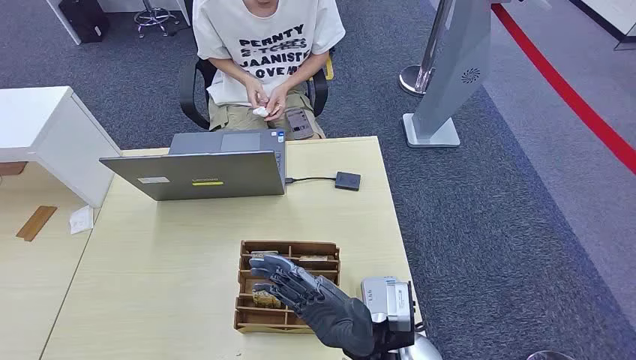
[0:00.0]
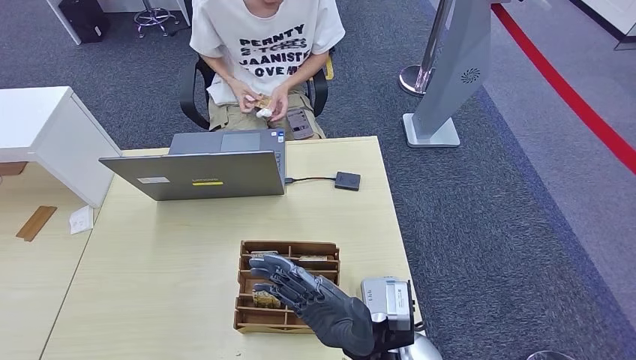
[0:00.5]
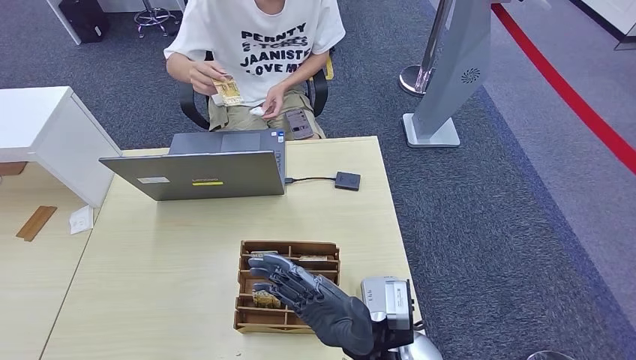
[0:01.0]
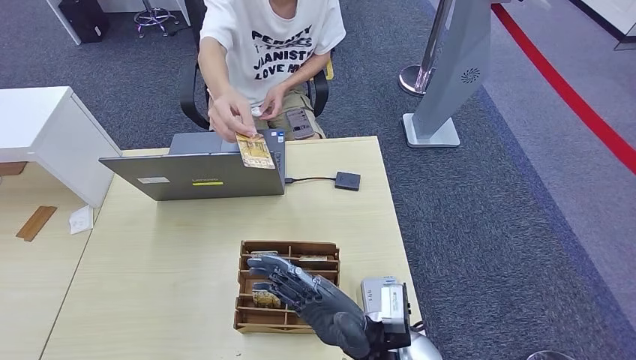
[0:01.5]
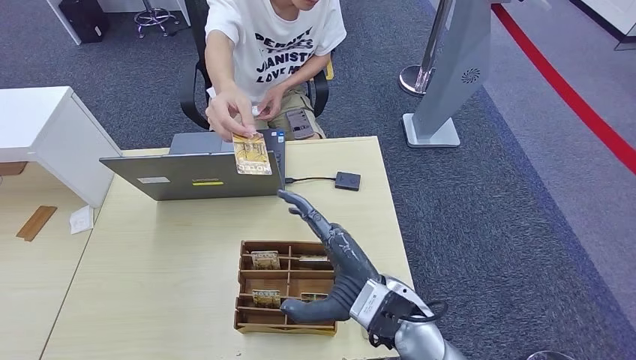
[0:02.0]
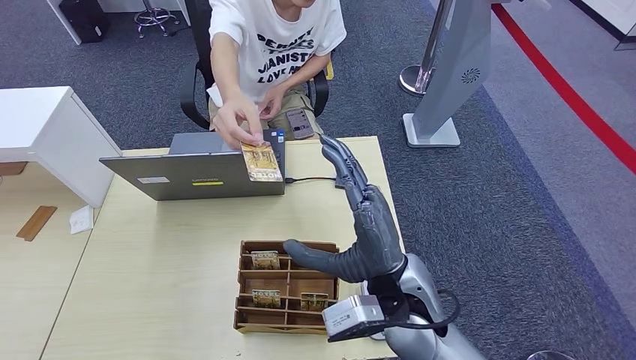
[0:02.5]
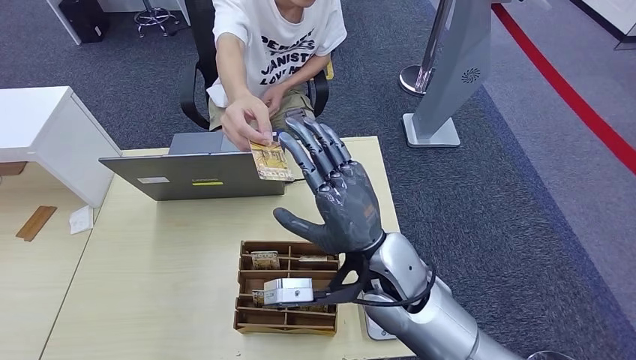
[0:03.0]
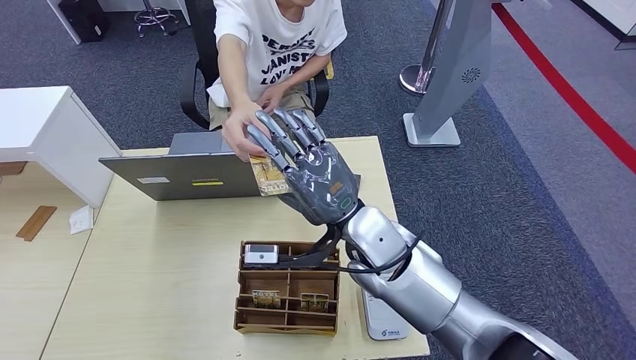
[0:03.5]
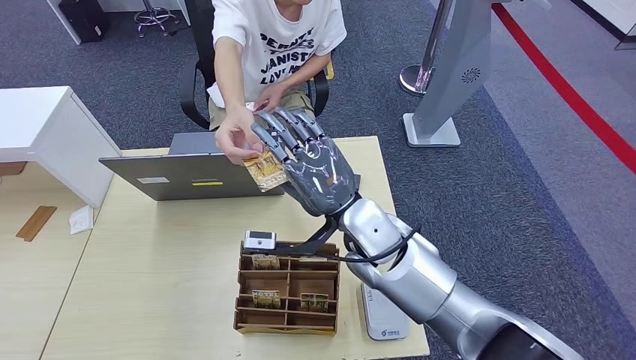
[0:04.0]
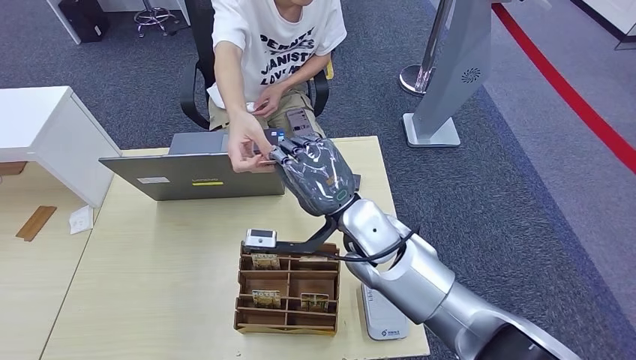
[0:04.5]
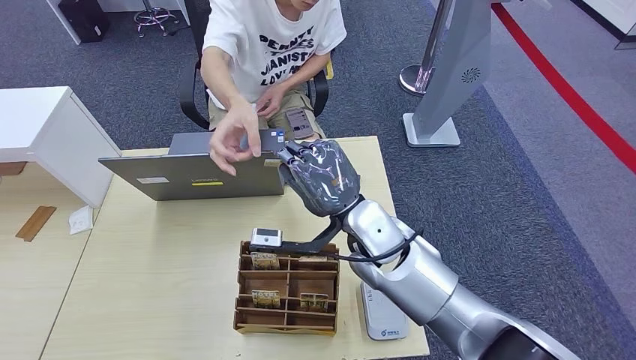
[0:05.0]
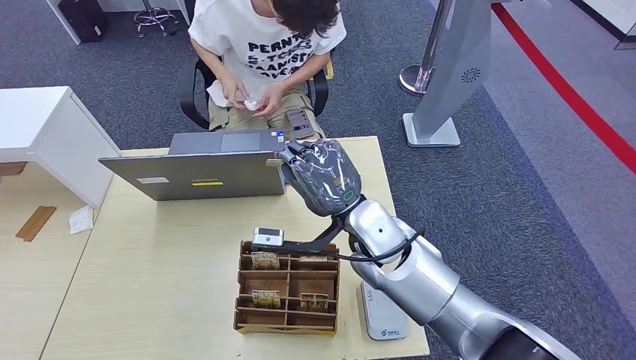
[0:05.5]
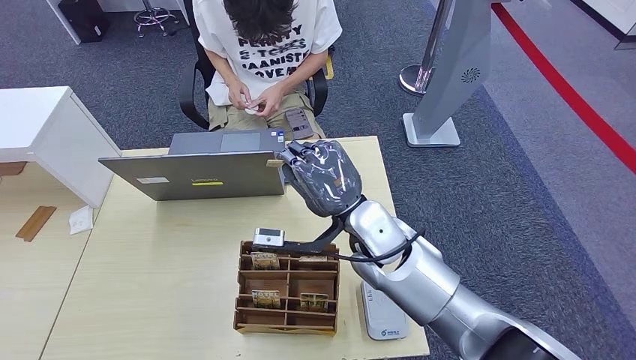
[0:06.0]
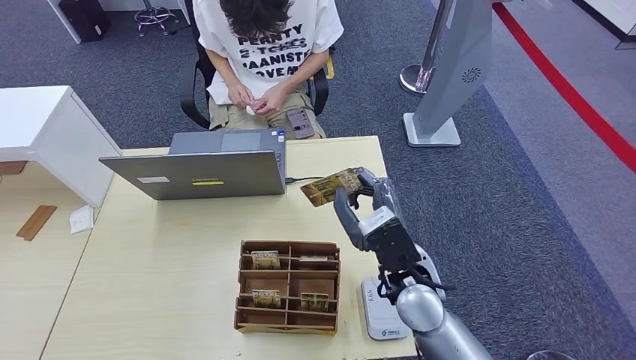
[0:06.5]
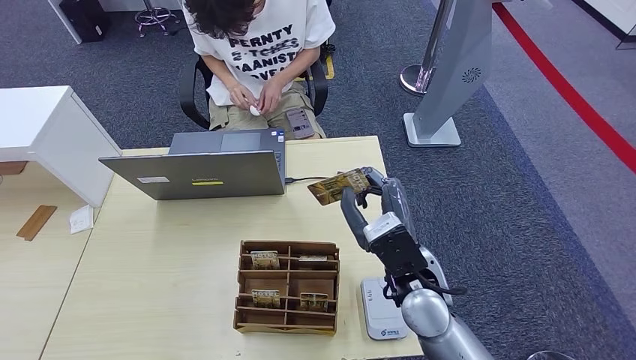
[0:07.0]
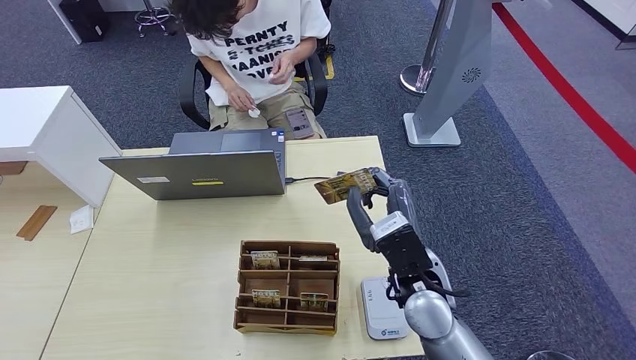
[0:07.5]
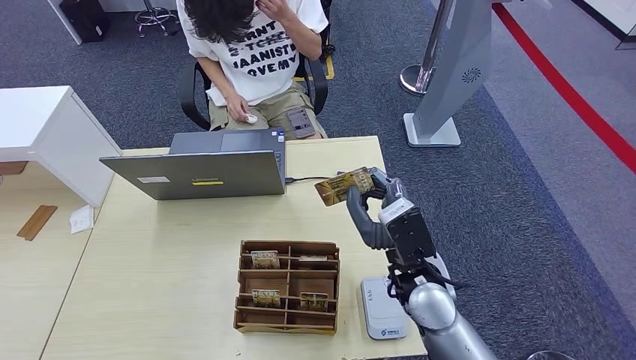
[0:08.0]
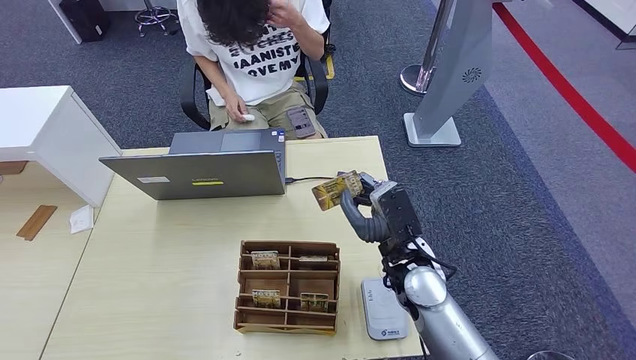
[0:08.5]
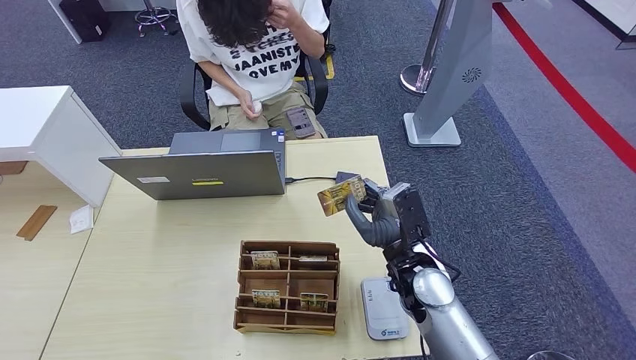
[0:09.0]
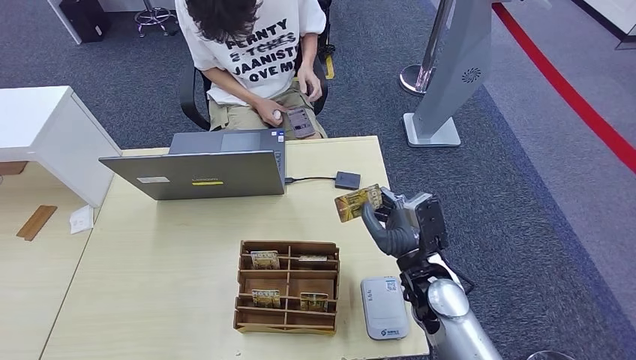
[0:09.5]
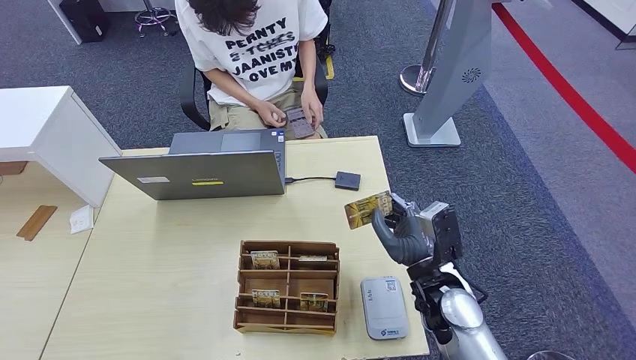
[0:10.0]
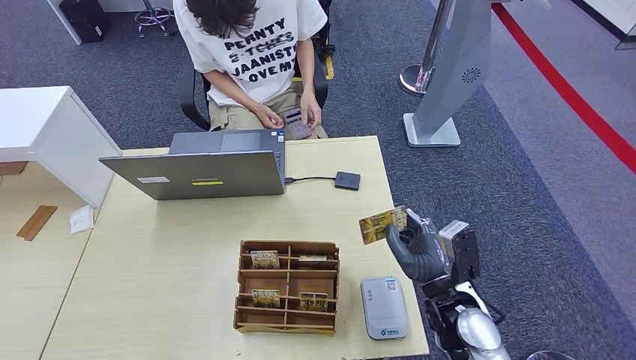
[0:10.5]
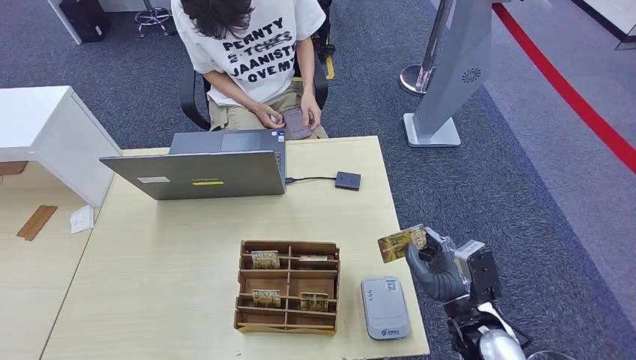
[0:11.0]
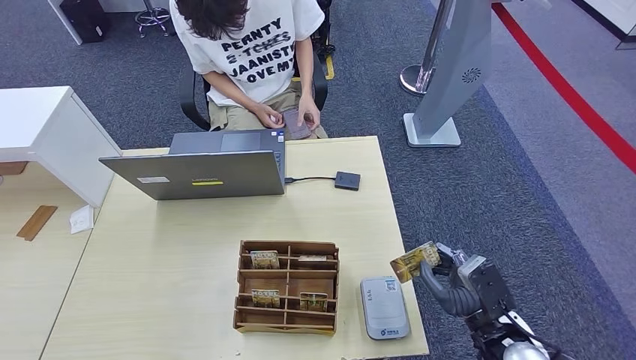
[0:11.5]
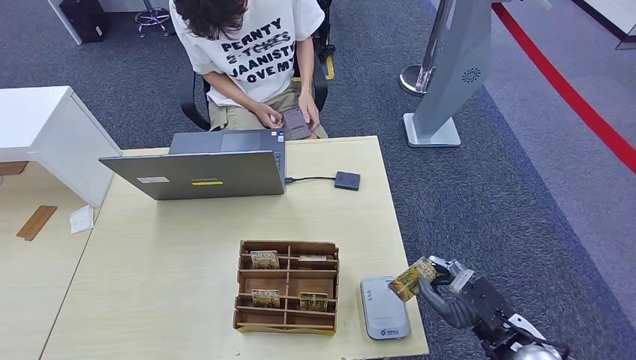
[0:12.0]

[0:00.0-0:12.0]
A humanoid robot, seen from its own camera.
Step, 0:00.0 to 0:04.5: Take the ID card from the person's hand.
0:02.0 to 0:04.0: The right hand heads forward, covering some 10 cm.
0:04.0 to 0:06.0: The hands make only small movements.
0:06.0 to 0:08.0: The right hand shifts approximately 10 cm to the right and backward.
0:08.0 to 0:10.0: The right hand goes some 5 cm downward.
0:10.0 to 0:12.0: The right hand travels to the right and backward by some 15 cm.

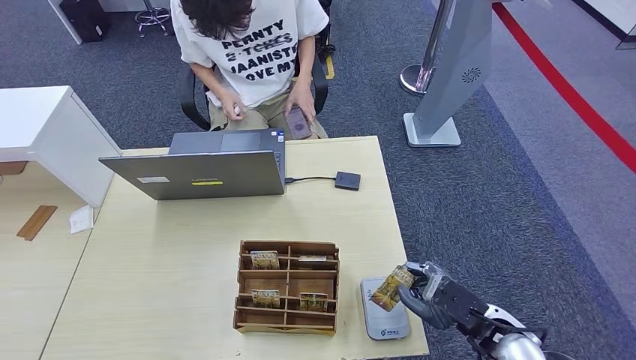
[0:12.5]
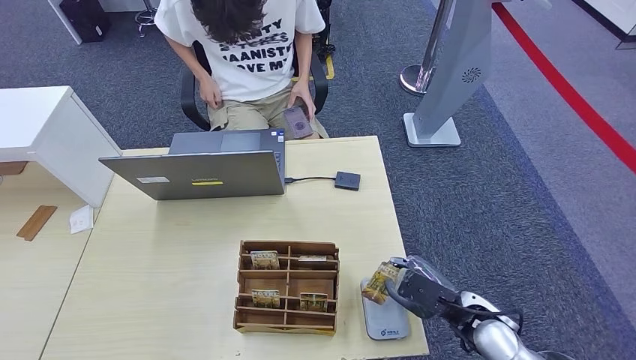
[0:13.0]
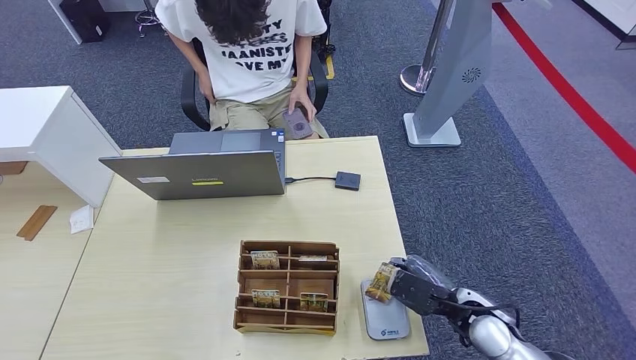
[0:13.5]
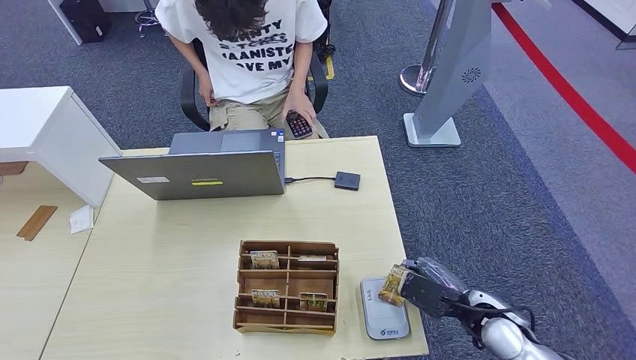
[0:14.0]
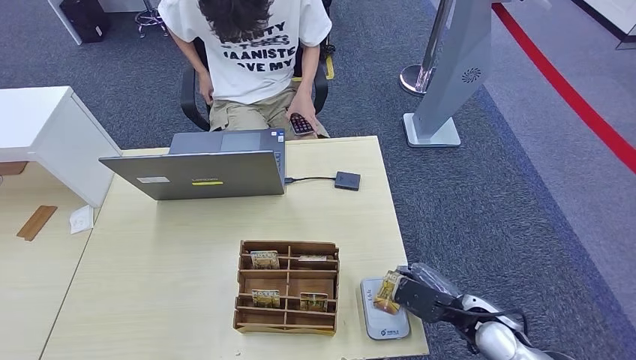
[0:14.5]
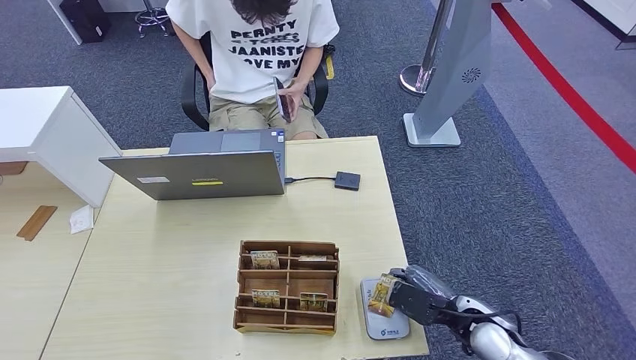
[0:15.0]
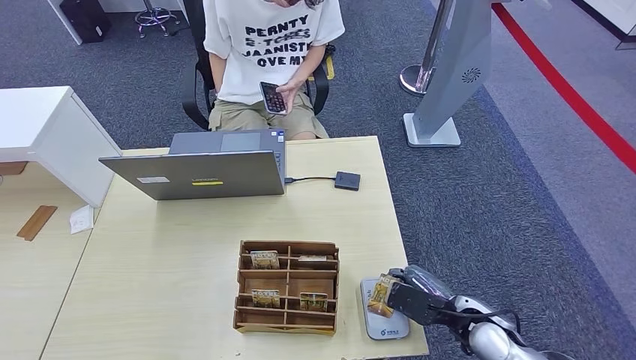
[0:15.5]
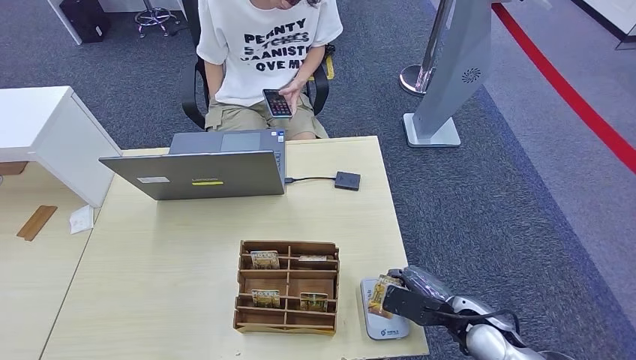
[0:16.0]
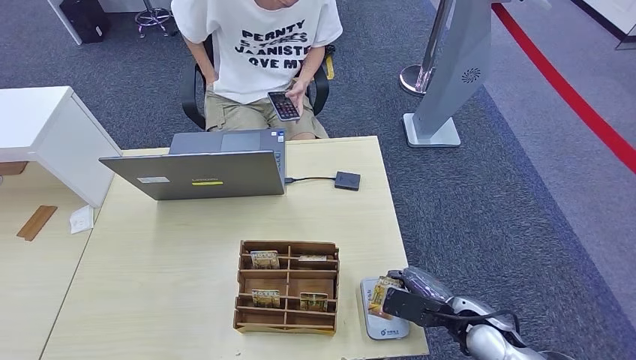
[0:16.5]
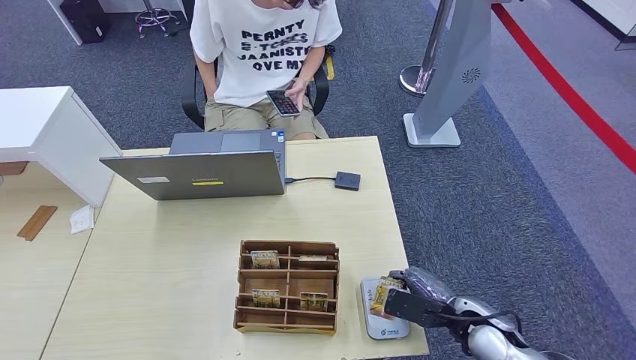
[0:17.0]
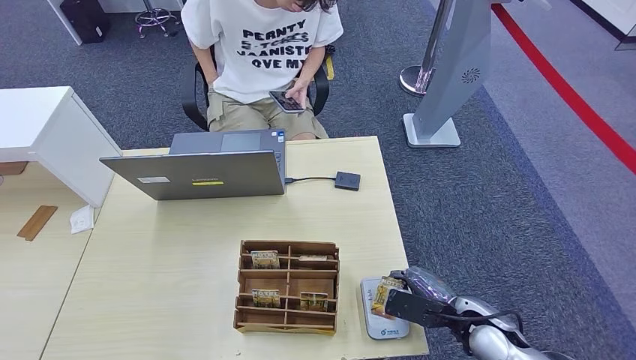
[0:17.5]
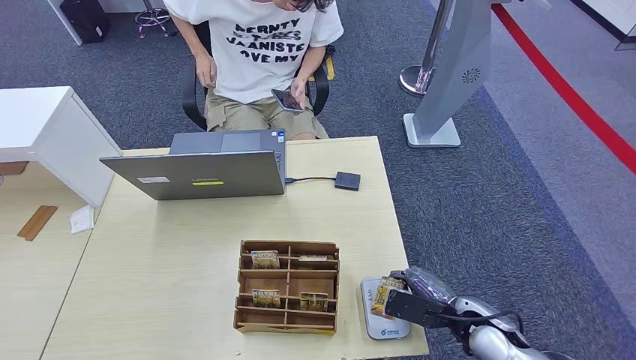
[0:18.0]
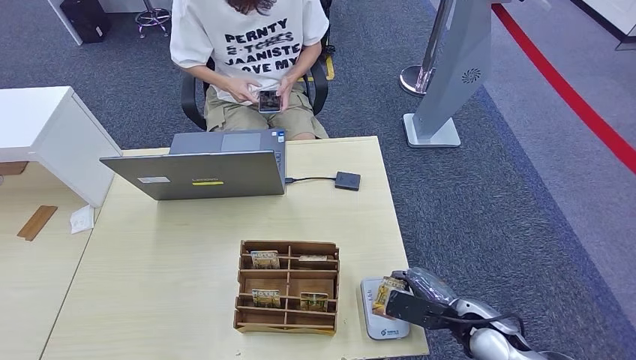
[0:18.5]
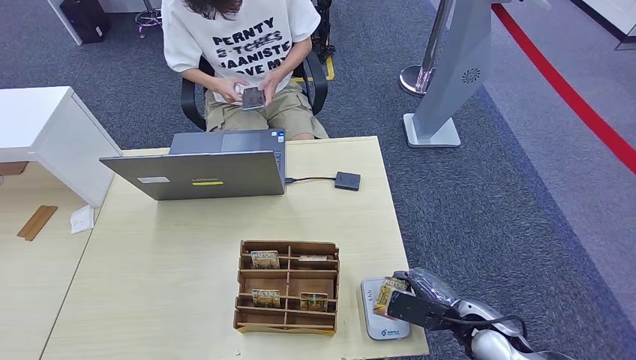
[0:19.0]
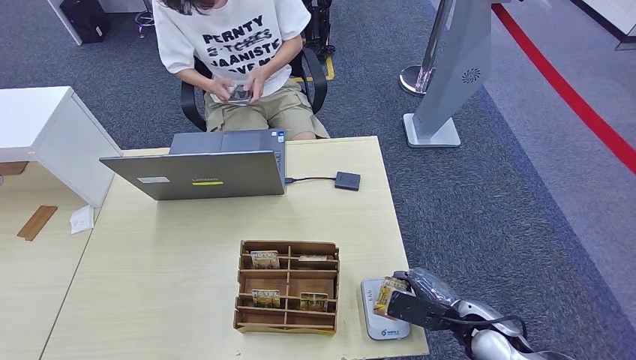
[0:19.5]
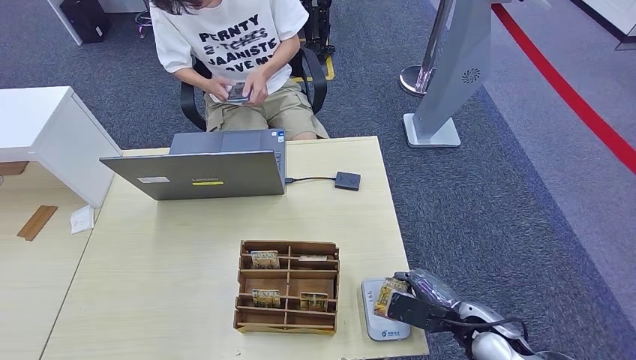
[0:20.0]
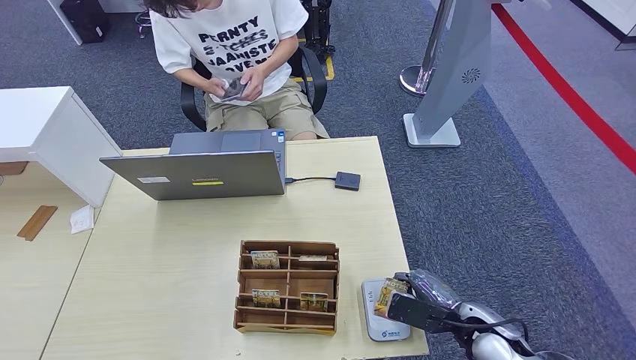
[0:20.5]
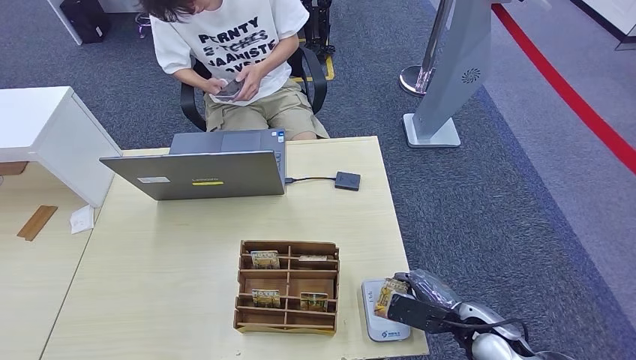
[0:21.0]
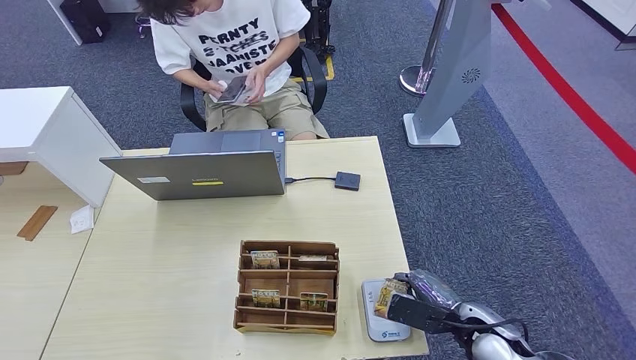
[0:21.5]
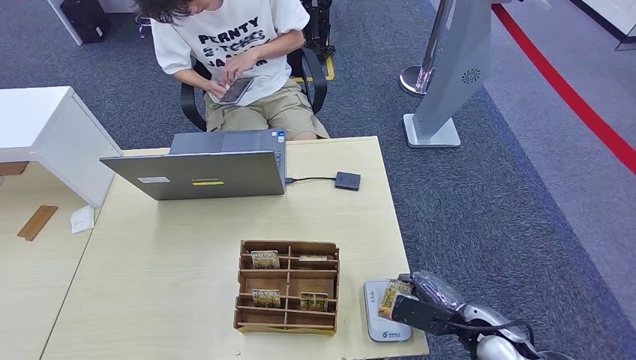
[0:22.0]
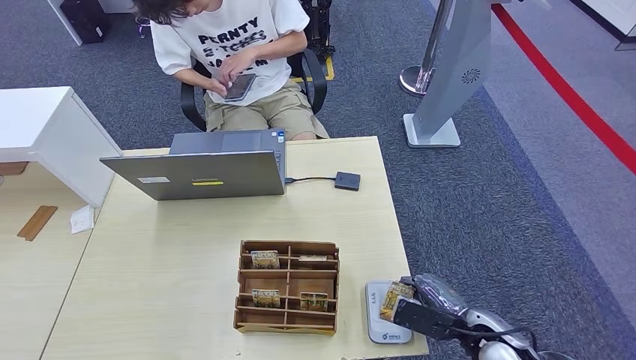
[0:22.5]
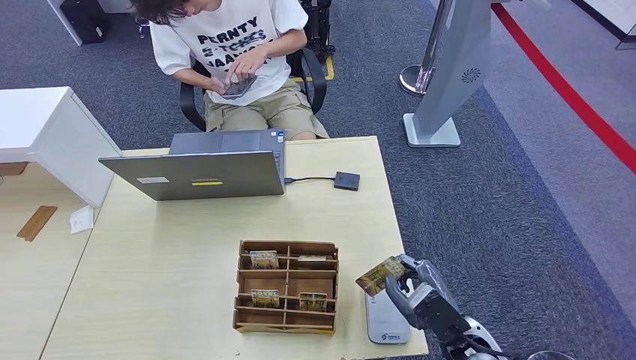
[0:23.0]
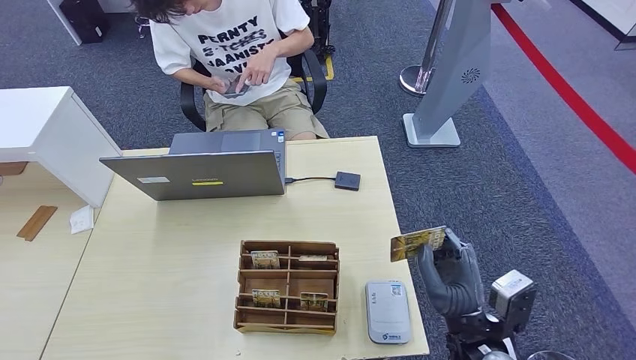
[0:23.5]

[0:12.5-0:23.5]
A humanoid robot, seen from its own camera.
0:14.5 to 0:16.0: The hands move only a little.
0:16.0 to 0:18.0: Both hands stay put.
0:18.0 to 0:21.5: The two hands keep their place.
0:21.5 to 0:23.5: The right hand travels upward and to the left by some 10 cm.
